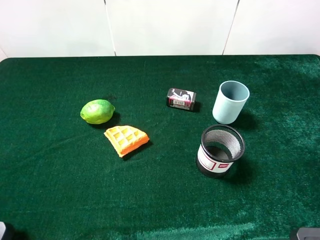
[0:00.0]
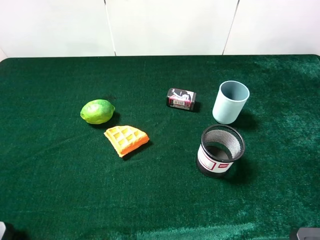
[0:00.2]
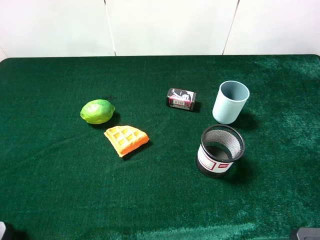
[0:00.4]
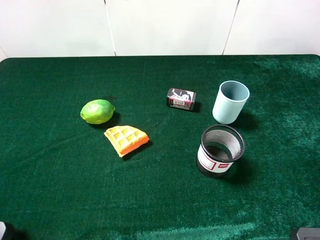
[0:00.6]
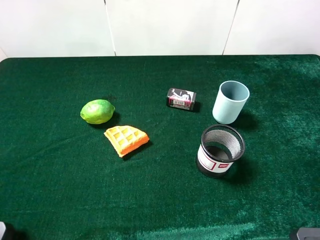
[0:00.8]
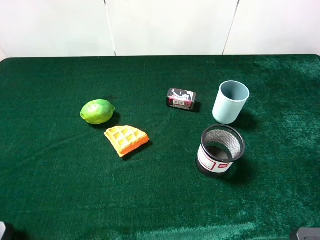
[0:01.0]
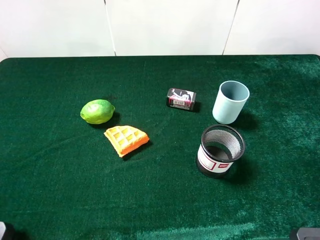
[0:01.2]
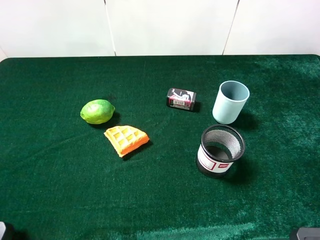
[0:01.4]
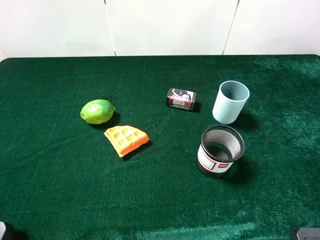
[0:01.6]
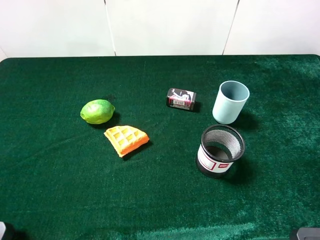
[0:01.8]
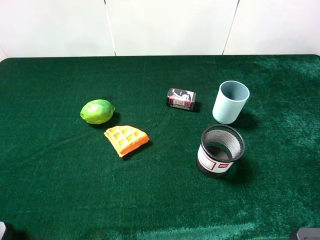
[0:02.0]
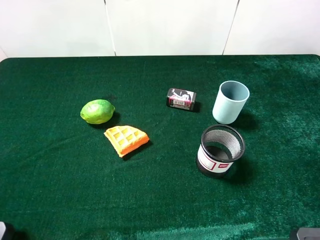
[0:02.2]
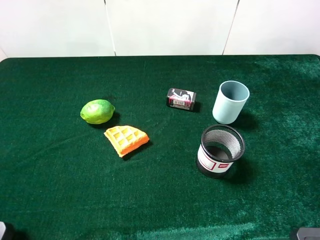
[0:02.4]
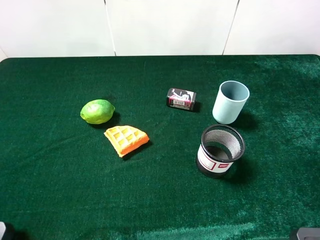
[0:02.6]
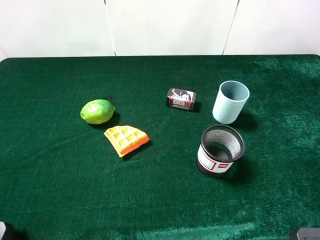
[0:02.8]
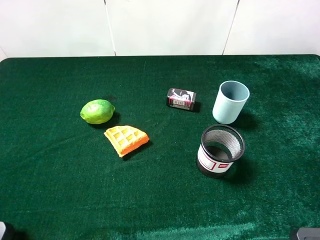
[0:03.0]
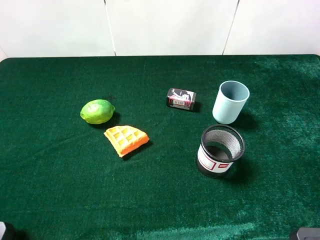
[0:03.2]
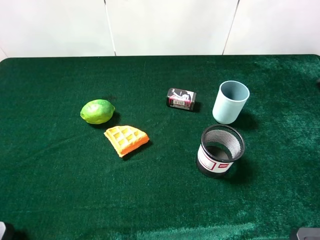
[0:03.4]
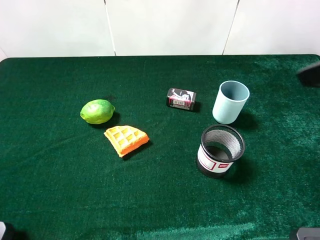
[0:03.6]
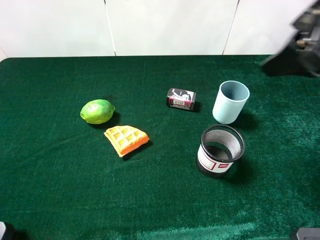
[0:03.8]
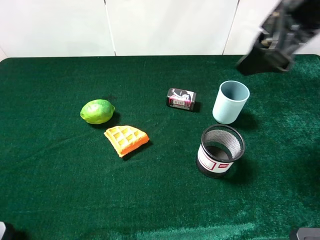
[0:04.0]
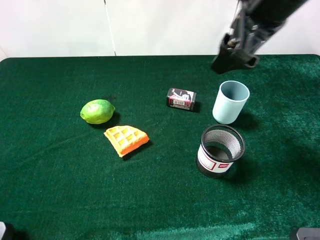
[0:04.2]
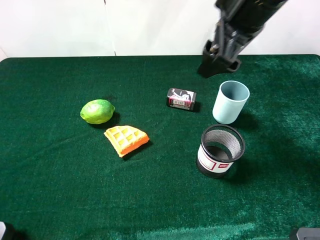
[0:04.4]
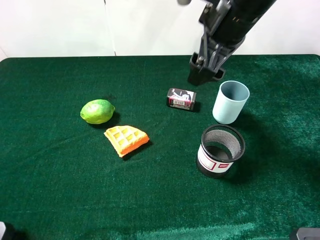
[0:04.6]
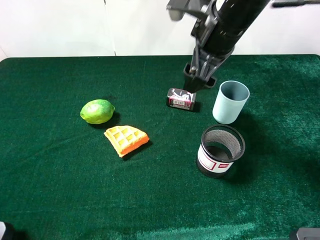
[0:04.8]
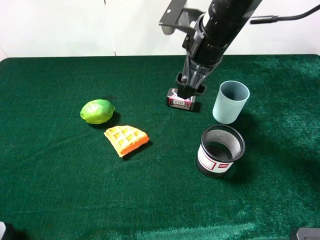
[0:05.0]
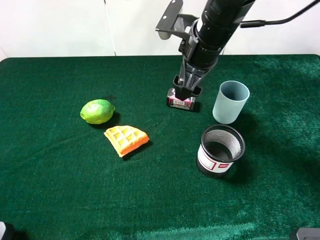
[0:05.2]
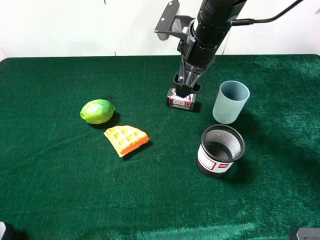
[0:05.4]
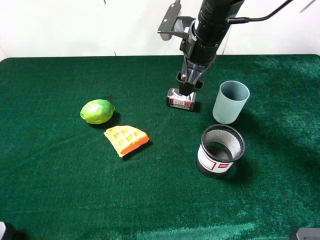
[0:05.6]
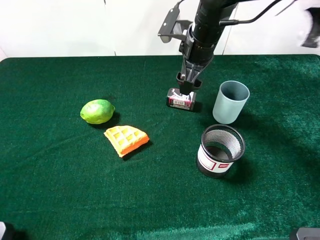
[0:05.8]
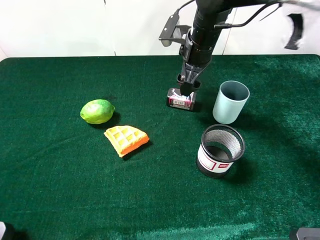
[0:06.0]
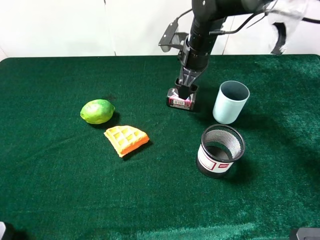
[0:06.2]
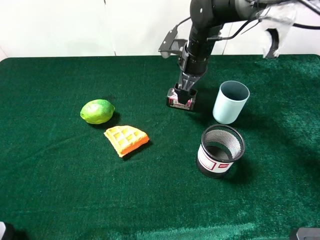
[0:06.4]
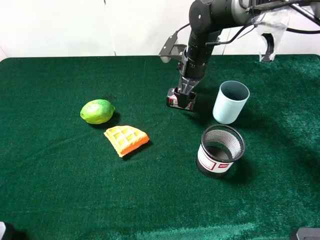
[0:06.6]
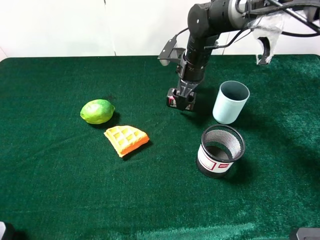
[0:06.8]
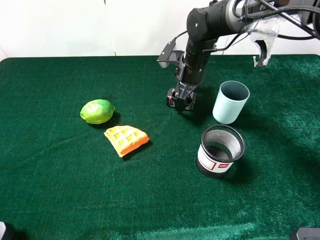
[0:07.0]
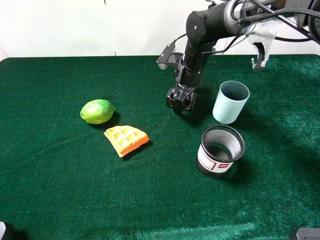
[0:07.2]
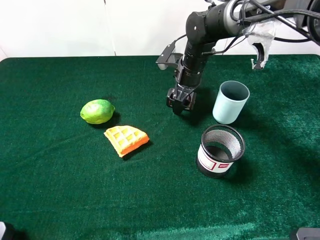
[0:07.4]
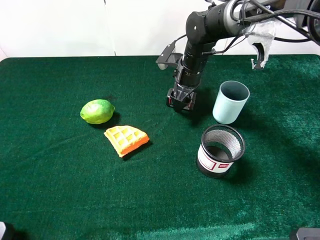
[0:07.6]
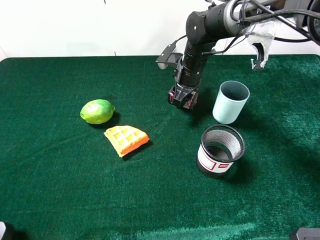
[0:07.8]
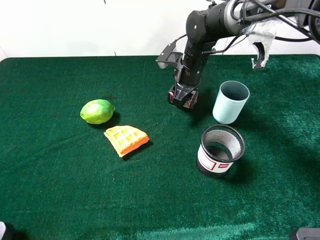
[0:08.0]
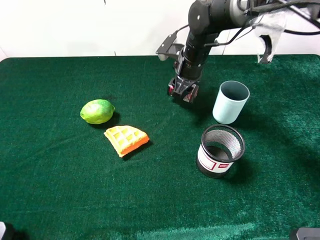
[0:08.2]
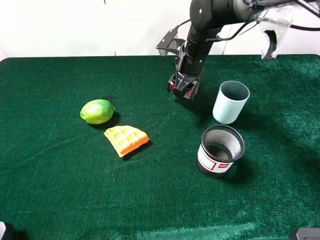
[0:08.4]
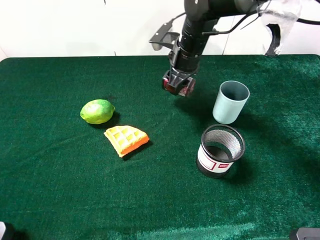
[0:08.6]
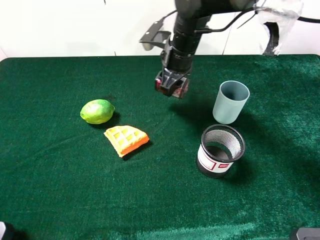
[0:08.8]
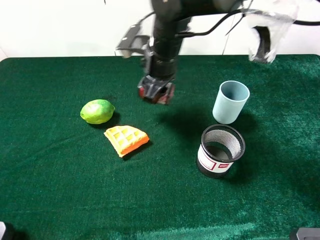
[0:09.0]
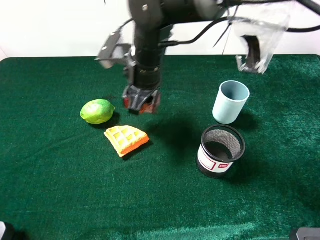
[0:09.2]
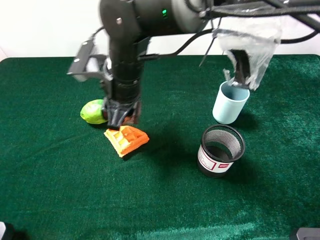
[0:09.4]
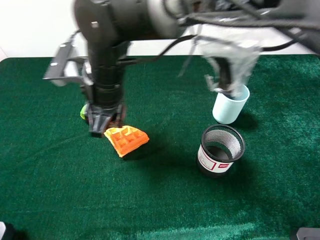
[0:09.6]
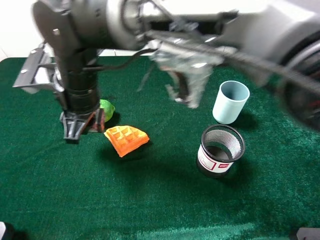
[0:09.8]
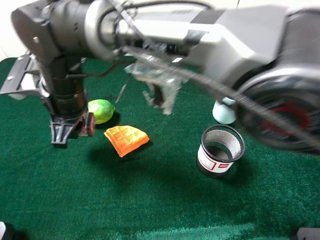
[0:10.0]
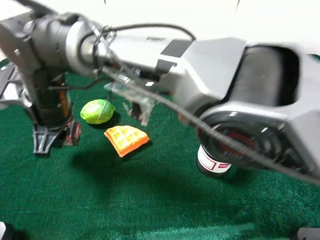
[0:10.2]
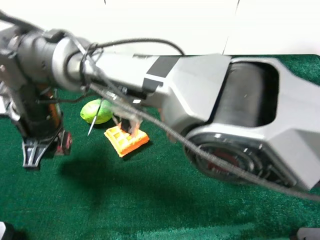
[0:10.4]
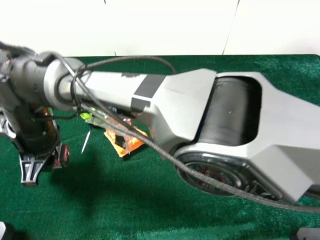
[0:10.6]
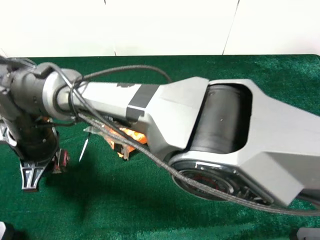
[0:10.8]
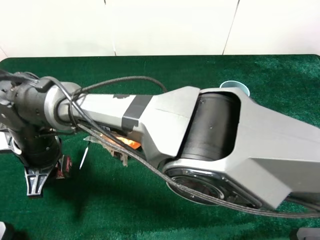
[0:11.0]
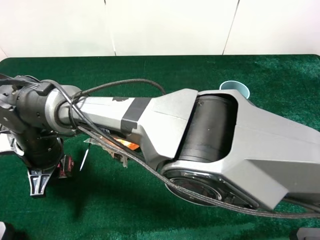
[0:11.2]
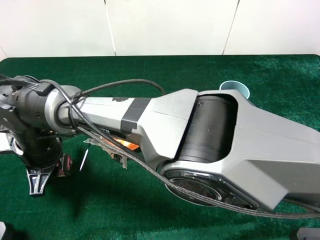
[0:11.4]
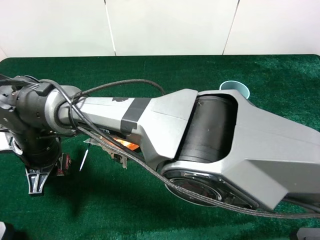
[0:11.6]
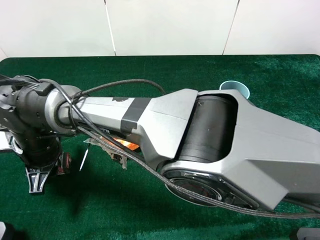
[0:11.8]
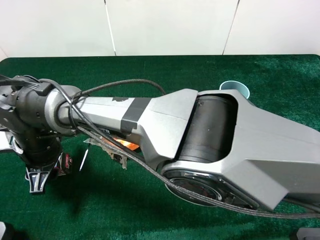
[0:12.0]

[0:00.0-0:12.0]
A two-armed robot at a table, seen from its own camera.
Task of the whole recording: the gripper move the object.
Step, 0:00.0 to 0:07.8: Grasp the square chewing gum with the right gripper.
0:00.0 to 0:01.6: The two grippers keep their place.
0:03.0 to 0:04.4: The right gripper is displaced forward and to the left by approximately 25 cm.
0:04.4 to 0:06.0: The right gripper heads downward and forward, covering about 20 cm.
0:06.0 to 0:07.6: The right gripper heads downward, covering about 5 cm, and closes up.
0:07.6 to 0:09.0: The right gripper travels to the left, upward and backward by some 15 cm, and closes its fingers.
0:09.0 to 0:10.4: The right gripper travels to the left and backward by some 25 cm.
0:10.4 to 0:12.0: The right gripper is displaced downward by some 5 cm, and opens up.

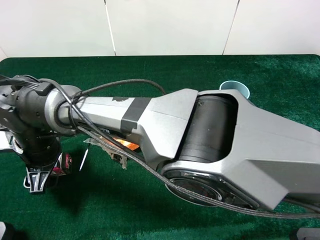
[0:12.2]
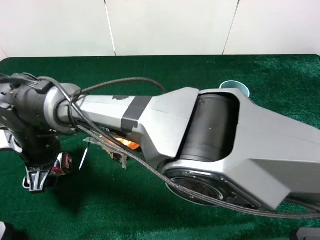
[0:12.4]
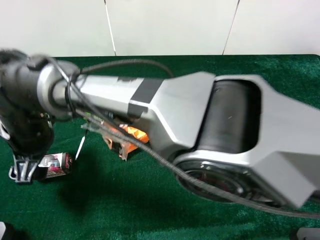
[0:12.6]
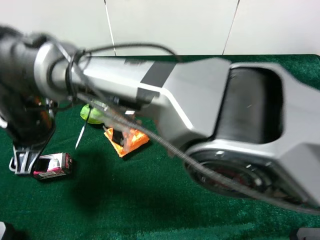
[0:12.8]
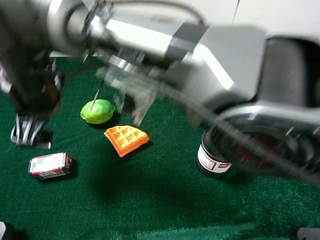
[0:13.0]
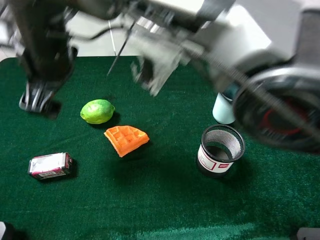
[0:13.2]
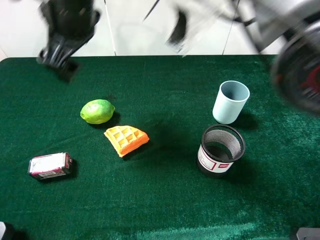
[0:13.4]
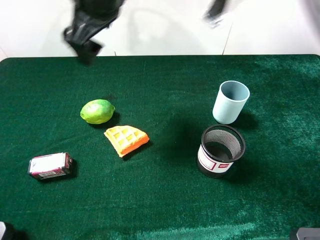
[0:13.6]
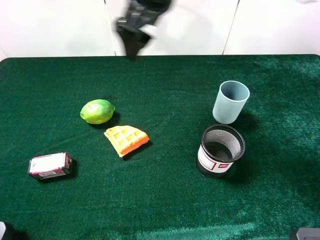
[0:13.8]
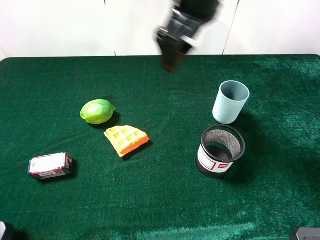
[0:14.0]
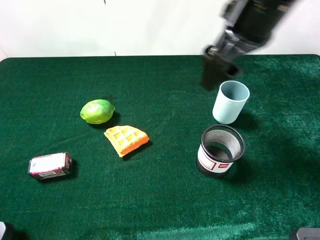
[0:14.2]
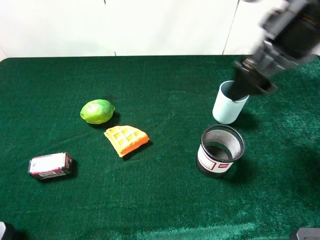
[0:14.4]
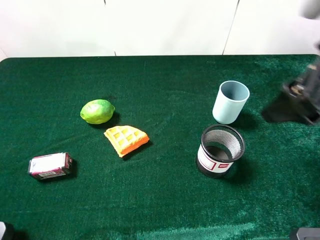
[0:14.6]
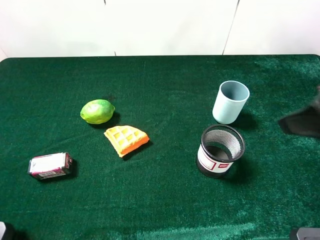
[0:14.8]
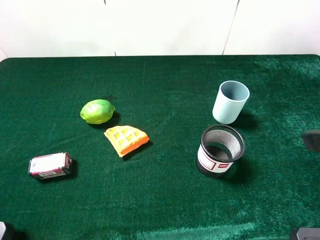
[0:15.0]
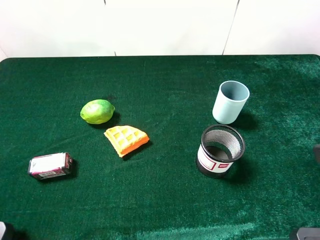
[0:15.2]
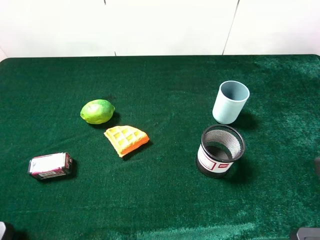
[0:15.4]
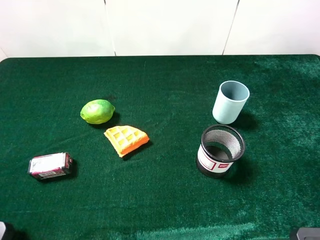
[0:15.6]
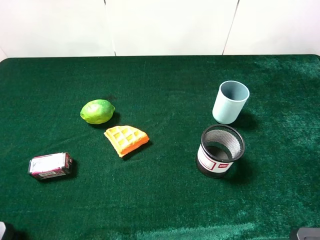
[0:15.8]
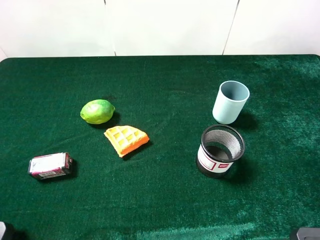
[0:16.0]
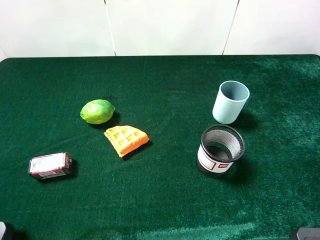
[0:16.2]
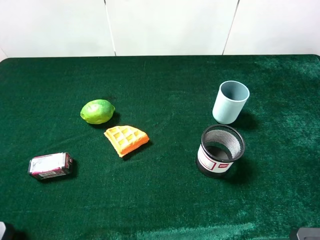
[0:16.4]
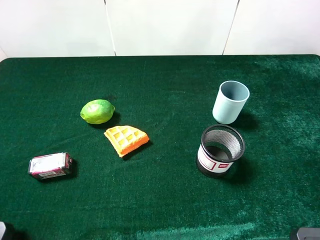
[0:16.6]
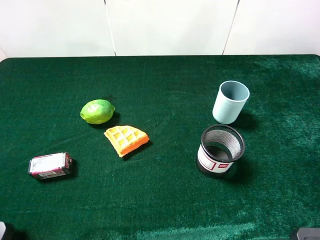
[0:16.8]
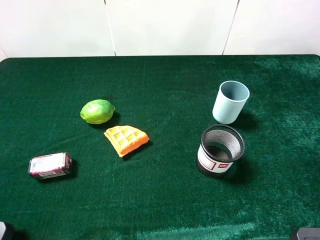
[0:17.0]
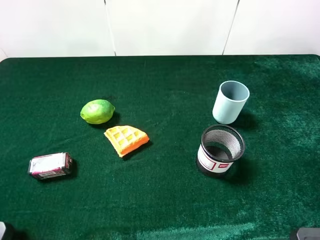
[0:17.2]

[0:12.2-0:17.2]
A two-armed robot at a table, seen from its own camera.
Task of the whole recording: the gripper move the object.
0:12.2 to 0:13.8: The right gripper is displaced upward, to the right and forward by approximately 35 cm.
0:13.8 to 0:15.6: The right gripper is displaced to the right and backward by some 40 cm.

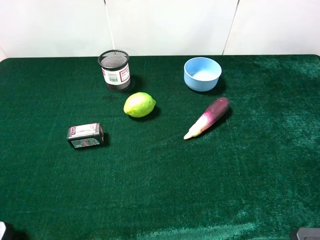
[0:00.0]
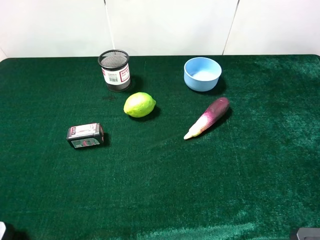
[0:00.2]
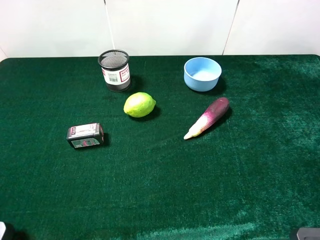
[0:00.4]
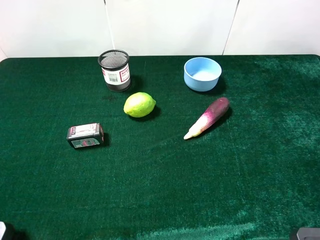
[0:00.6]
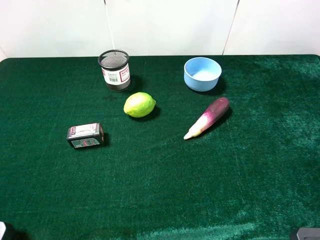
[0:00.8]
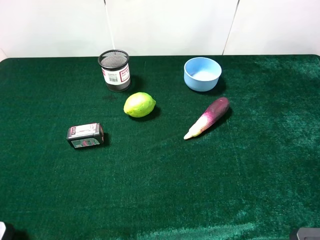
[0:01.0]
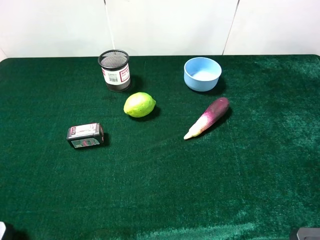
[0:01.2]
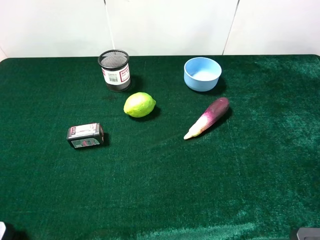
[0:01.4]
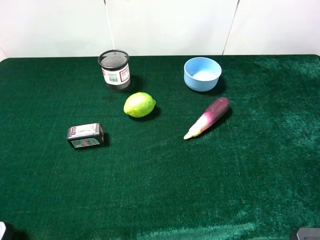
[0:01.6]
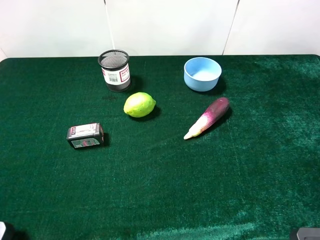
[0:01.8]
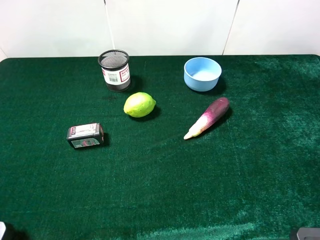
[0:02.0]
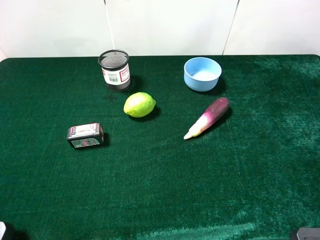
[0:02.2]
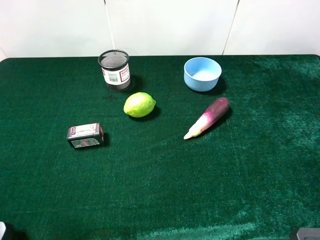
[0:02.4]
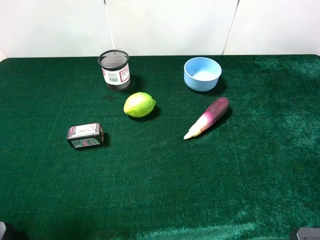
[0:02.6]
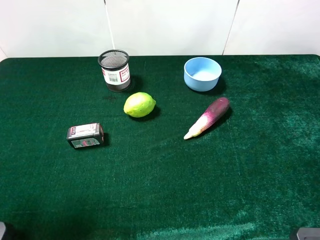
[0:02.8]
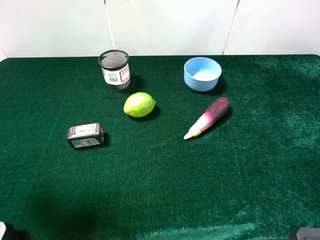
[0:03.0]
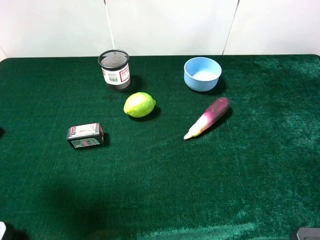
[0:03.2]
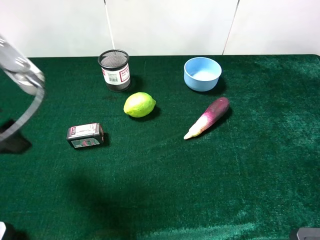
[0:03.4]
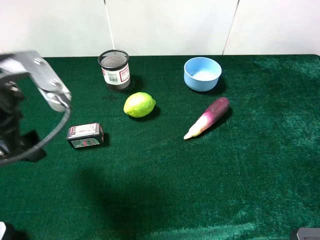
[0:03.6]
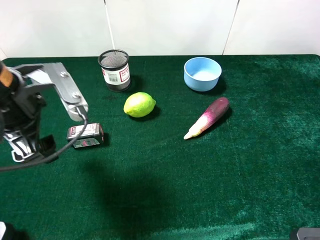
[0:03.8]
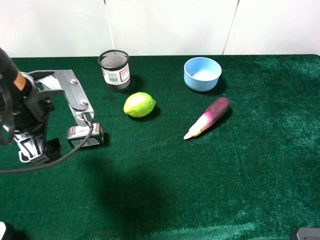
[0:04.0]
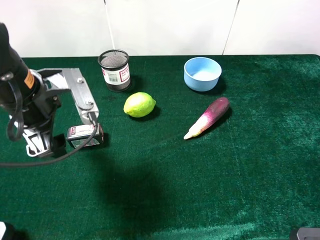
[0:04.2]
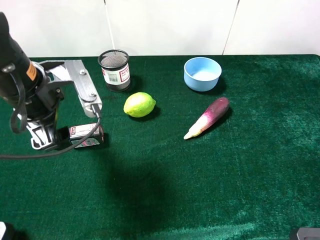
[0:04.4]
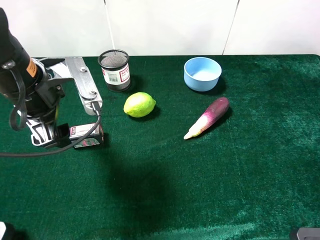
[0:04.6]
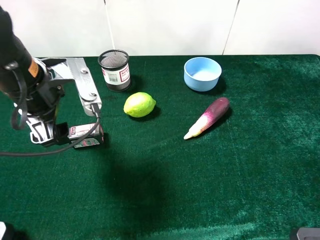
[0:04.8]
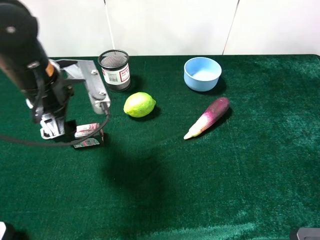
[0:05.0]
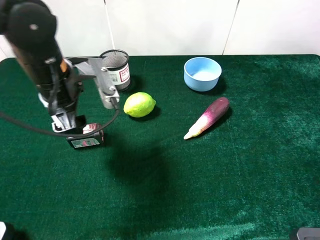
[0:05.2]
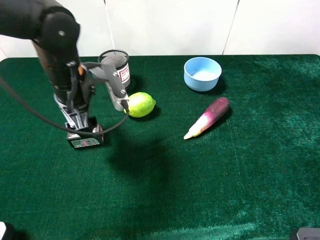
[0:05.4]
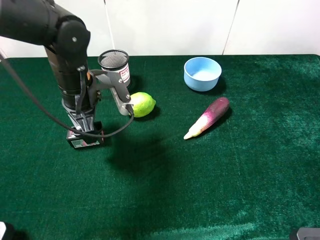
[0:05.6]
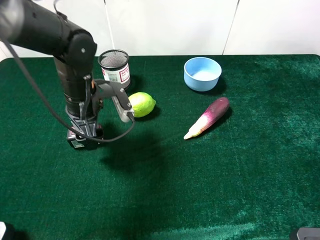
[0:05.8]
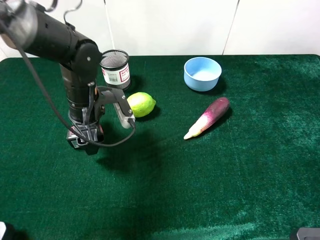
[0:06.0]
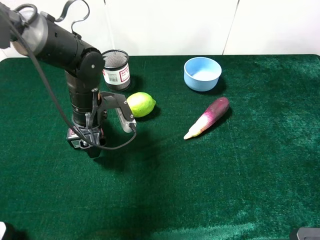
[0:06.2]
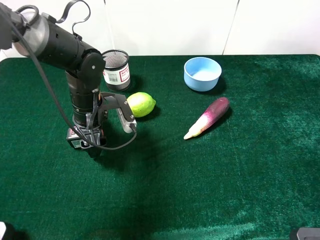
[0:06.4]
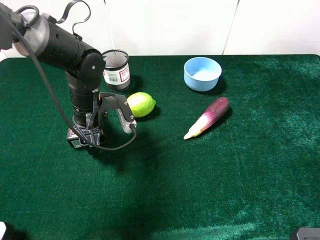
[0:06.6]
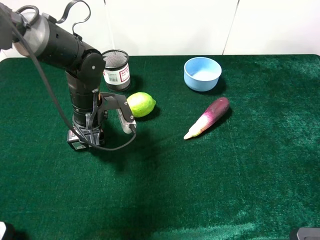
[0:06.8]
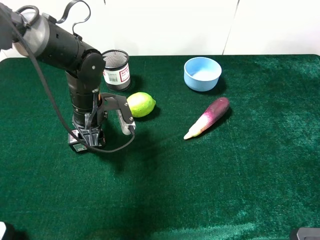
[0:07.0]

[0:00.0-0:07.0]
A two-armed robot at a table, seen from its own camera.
Task of the whole recording: the gripper move the object.
0:01.4 to 0:02.8: The left gripper heads forward, covering about 10 cm.
0:02.8 to 0:04.2: The left gripper shifts about 20 cm to the right, forward and downward.
0:04.2 to 0:05.6: The left gripper shifts about 10 cm forward.
0:05.6 to 0:07.0: The left gripper goes some 5 cm downward, and closes its fingers.
